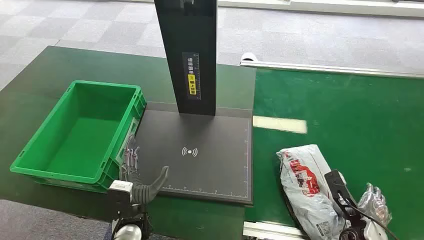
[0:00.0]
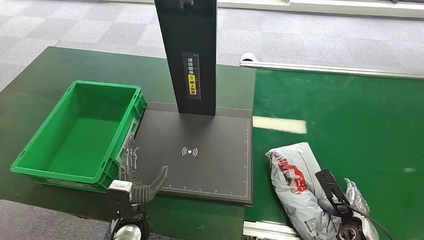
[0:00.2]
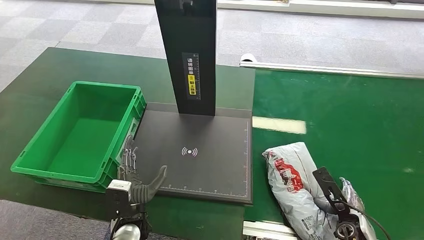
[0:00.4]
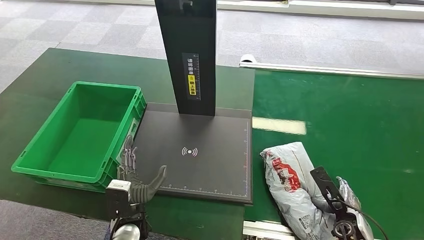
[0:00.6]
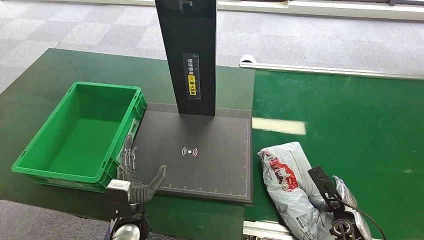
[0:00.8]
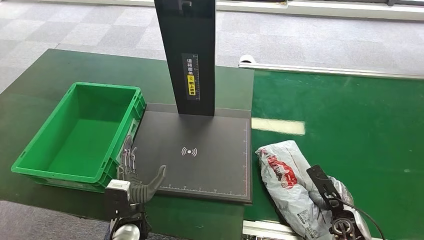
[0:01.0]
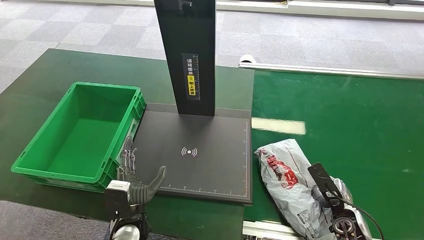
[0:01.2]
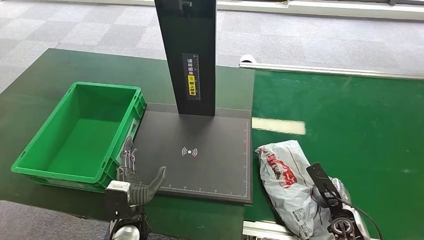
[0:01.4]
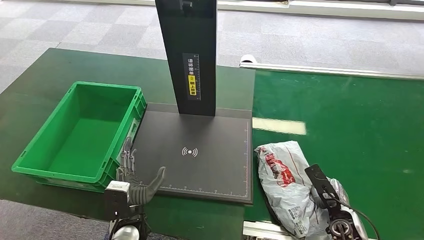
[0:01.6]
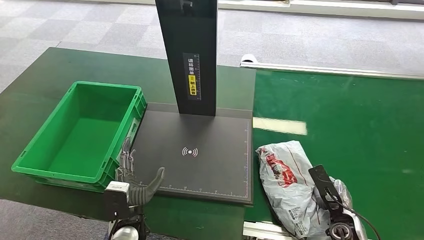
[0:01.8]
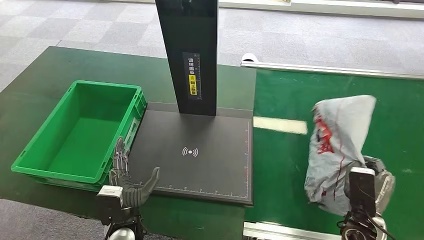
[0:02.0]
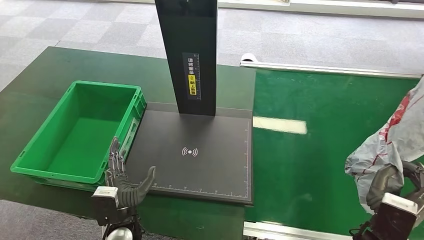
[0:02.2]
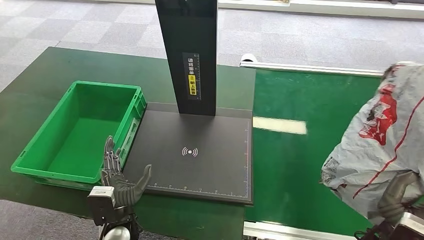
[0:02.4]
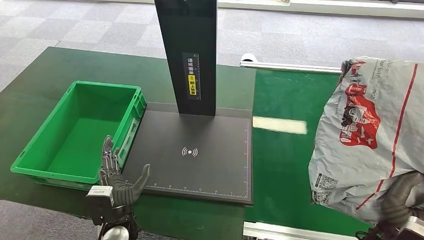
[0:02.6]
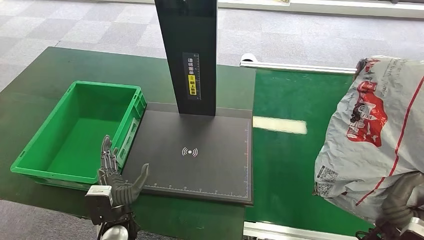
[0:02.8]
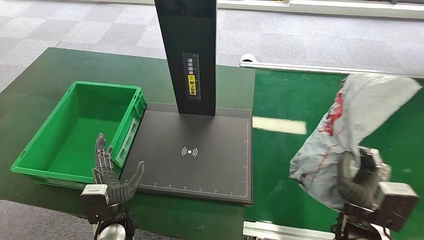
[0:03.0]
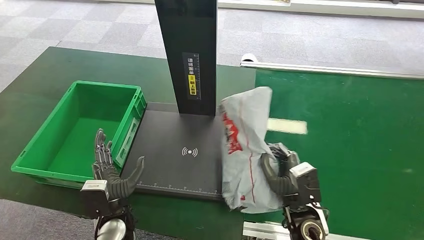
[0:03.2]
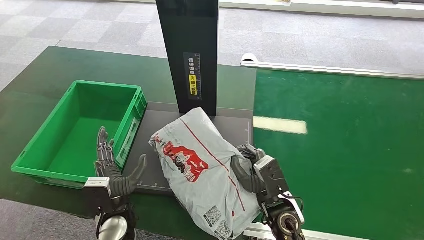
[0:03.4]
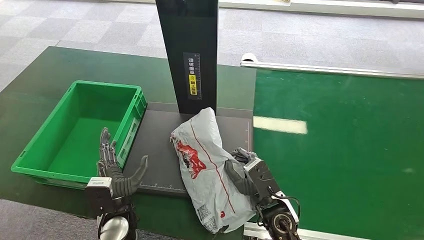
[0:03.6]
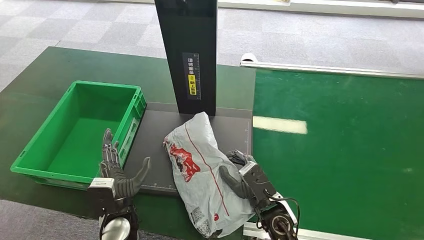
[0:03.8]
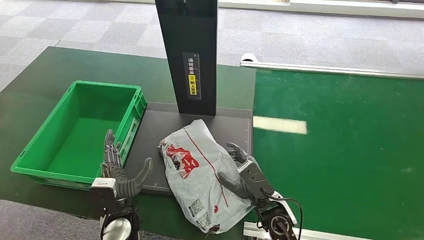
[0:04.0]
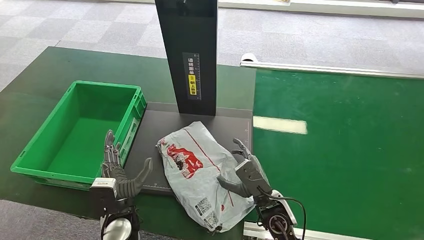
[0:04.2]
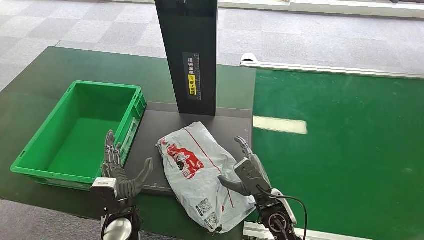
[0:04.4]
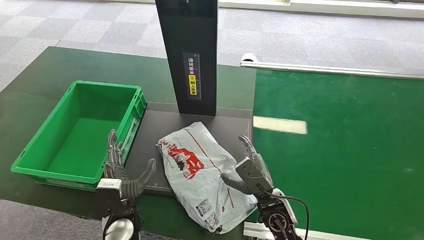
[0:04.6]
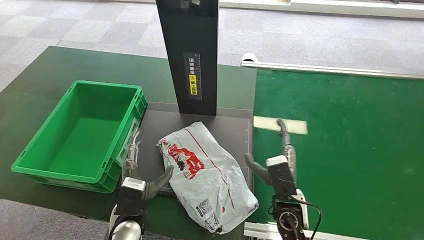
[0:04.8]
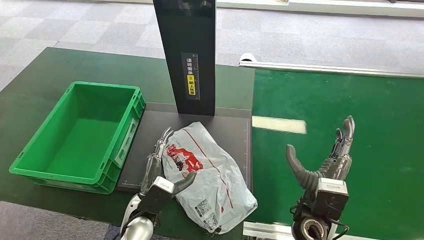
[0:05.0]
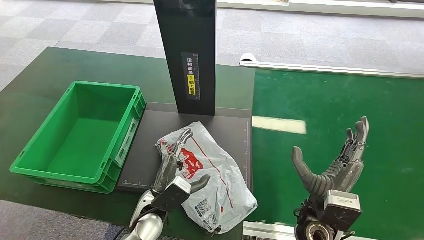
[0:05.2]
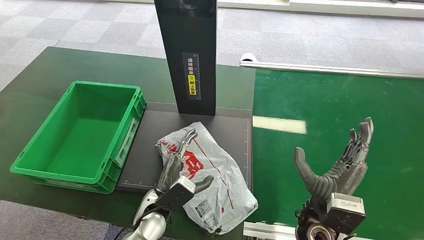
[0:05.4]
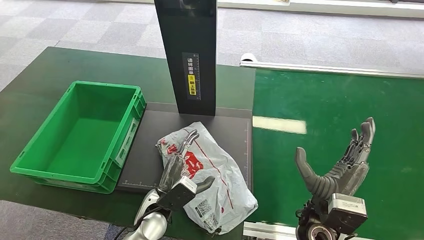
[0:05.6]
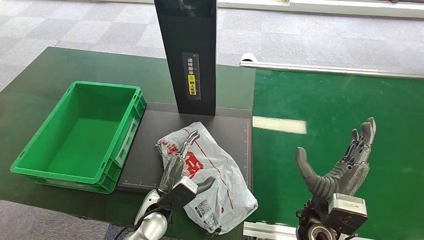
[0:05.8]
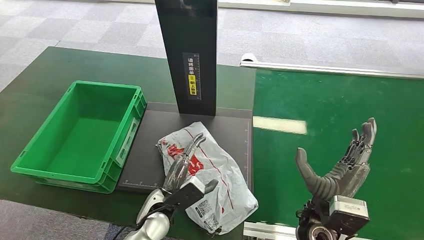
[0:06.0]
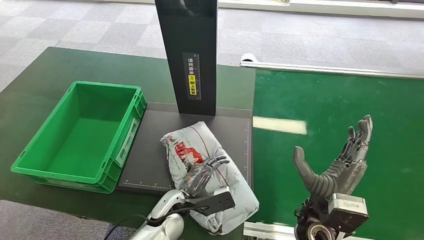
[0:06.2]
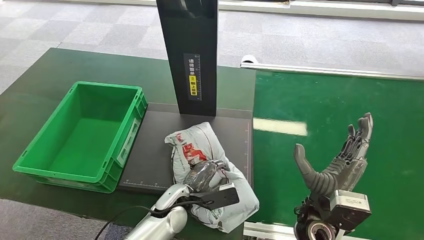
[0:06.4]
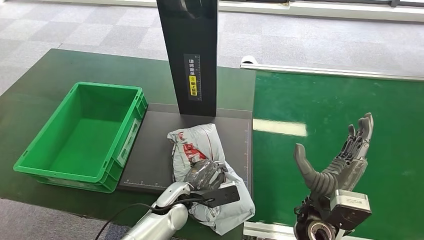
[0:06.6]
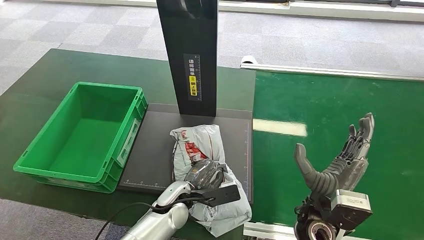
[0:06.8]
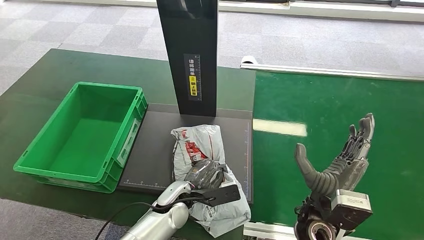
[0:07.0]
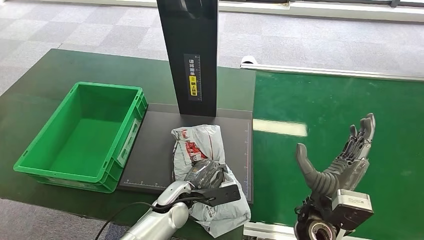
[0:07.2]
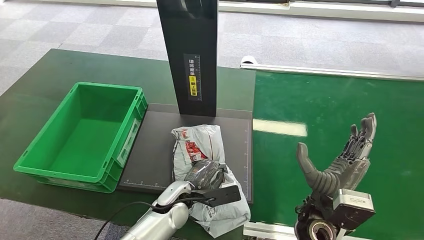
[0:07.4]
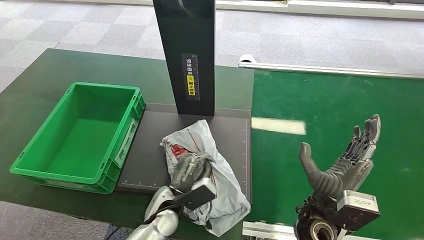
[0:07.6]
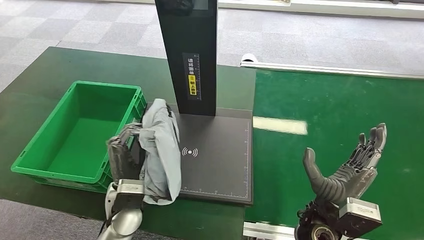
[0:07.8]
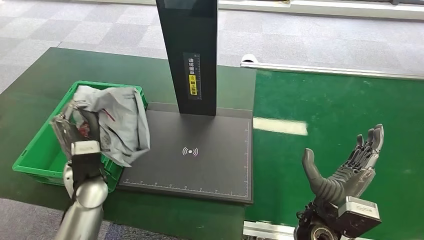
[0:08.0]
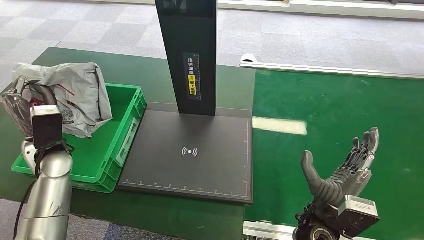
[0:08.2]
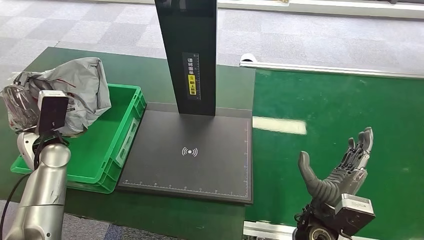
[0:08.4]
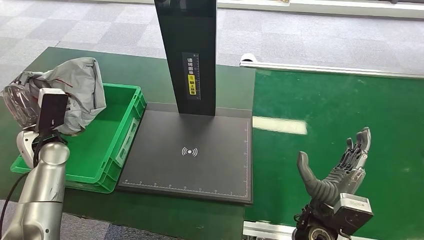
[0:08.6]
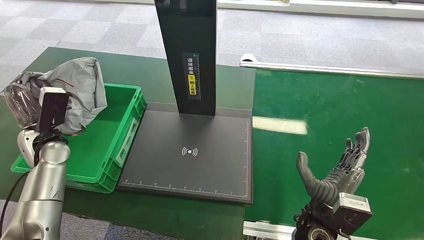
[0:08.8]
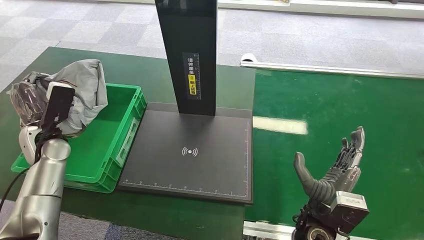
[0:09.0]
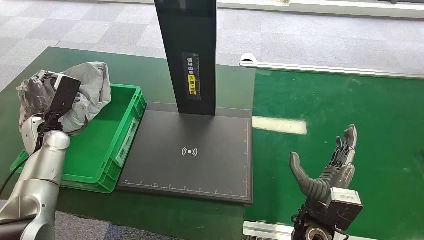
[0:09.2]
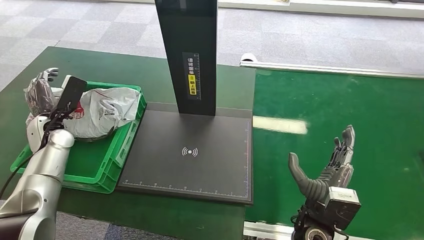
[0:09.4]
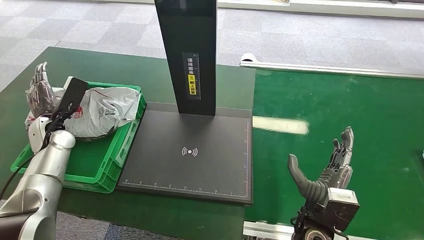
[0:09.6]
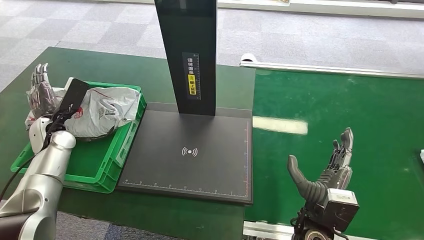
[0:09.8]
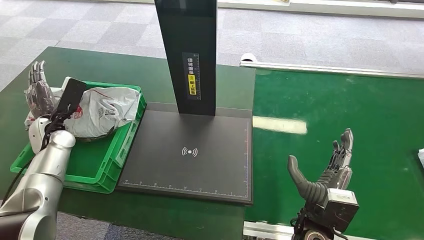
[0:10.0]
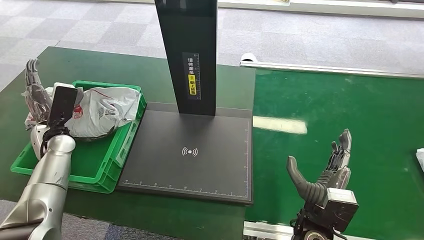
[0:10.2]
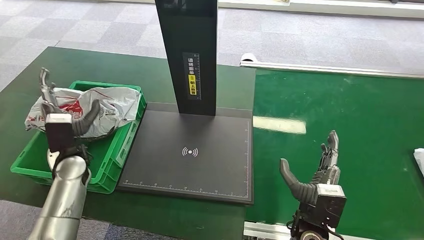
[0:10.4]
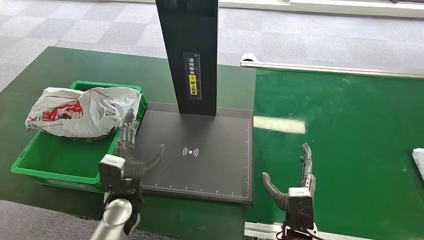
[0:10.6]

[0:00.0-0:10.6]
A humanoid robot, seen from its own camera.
Step, 0:00.0 to 0:03.0: Pick up the package from the conveyor belt.
Step, 0:03.2 to 0:05.0: Place the package onto the inbound machine.
Step, 0:05.2 to 0:08.2: Pick up the package from the inbound machine.
Step, 0:08.4 to 0:10.6: Place the package into the parcel locker.
0:04.6 to 0:06.0: The right hand moves upward and to the right, some 10 cm; the left hand is displaced to the right by approximately 5 cm.
